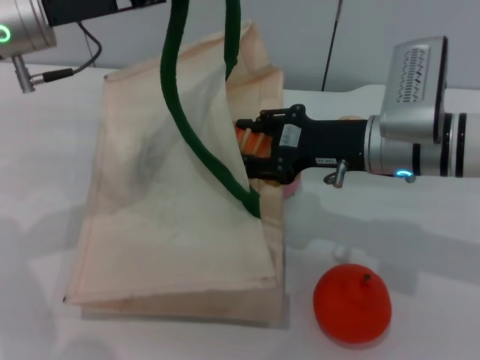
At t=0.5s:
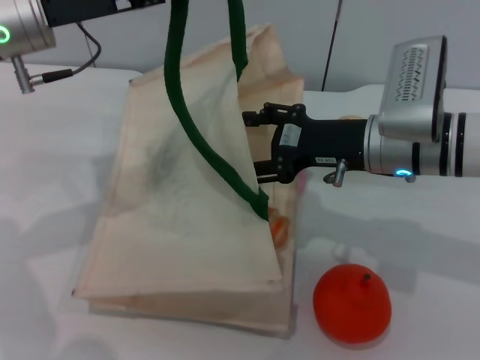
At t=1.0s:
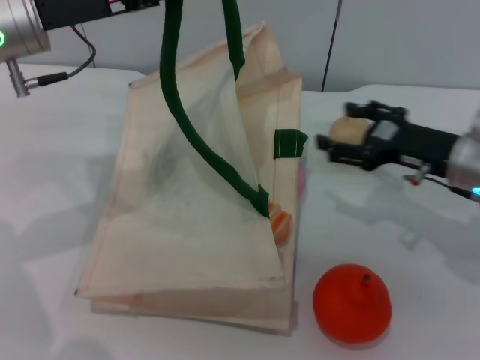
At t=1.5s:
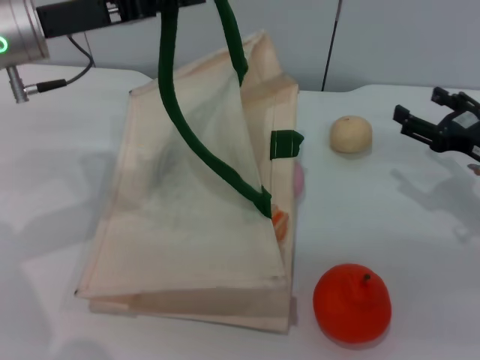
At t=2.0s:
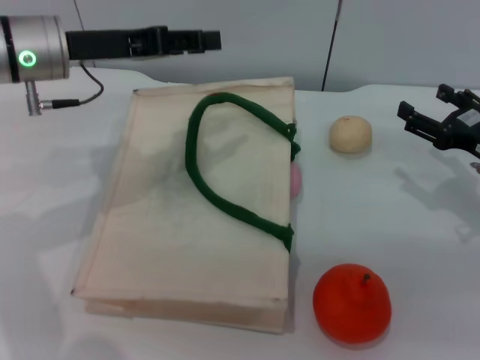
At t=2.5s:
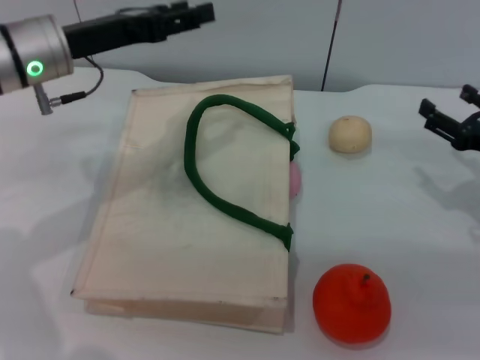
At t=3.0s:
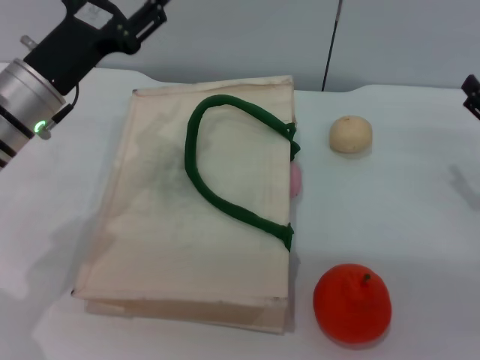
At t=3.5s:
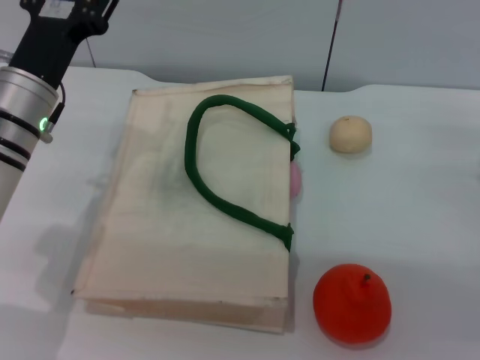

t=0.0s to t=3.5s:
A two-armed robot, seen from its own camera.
Task of the whole recording: pick up the bread from the table and place it in the white handbag.
Step, t=1.0s to t=1.5s: Lower the woven bag with the left gripper to close it.
t=0.0s to t=2.0s: The left gripper opens; the right gripper moves to the right, approximately 15 cm, and opens.
t=2.0s to t=3.5s: The left gripper heads downward, covering about 5 cm, and opens its fingers.
